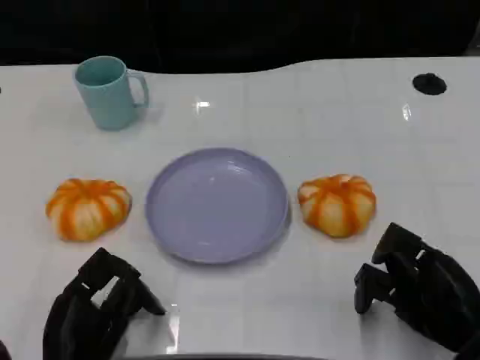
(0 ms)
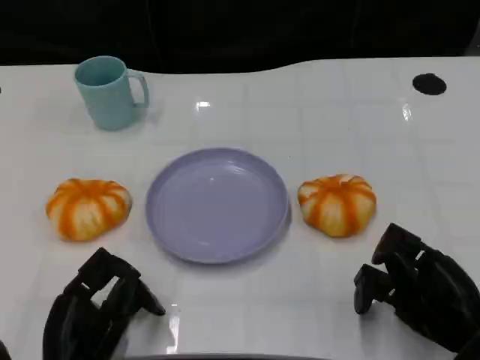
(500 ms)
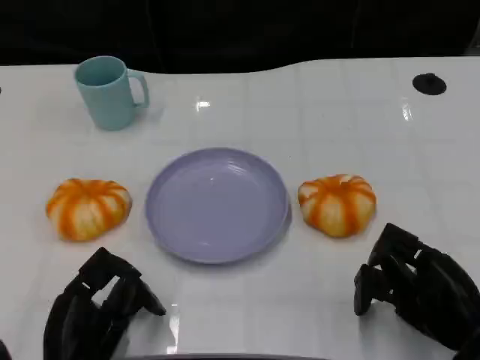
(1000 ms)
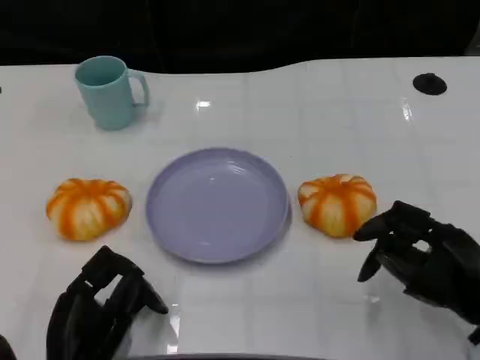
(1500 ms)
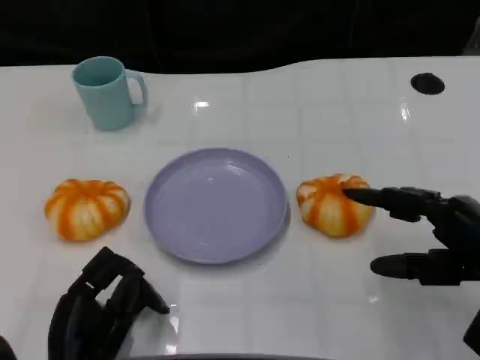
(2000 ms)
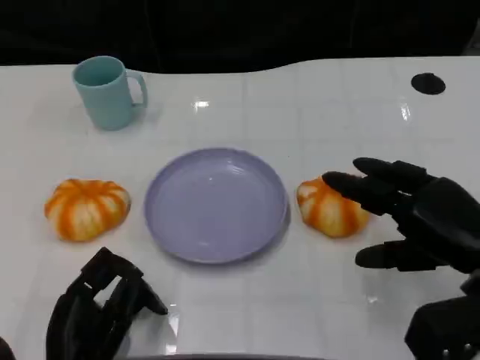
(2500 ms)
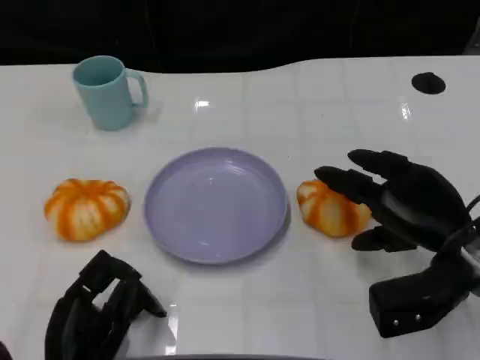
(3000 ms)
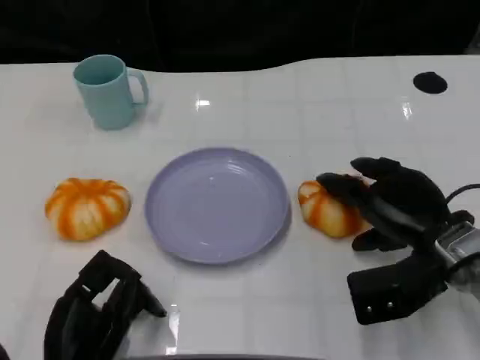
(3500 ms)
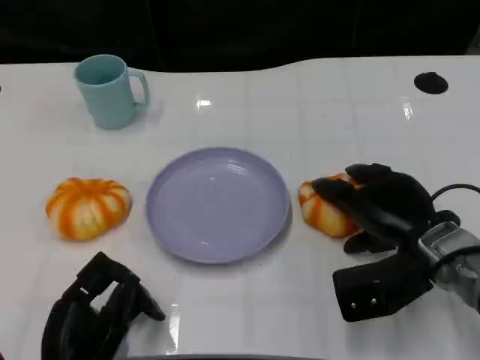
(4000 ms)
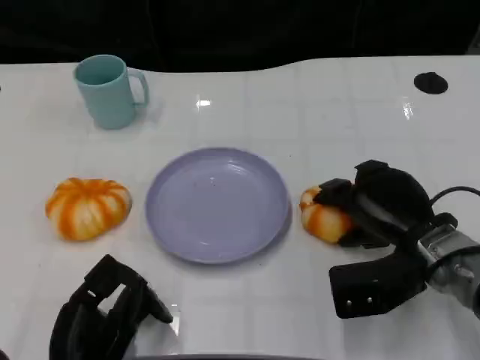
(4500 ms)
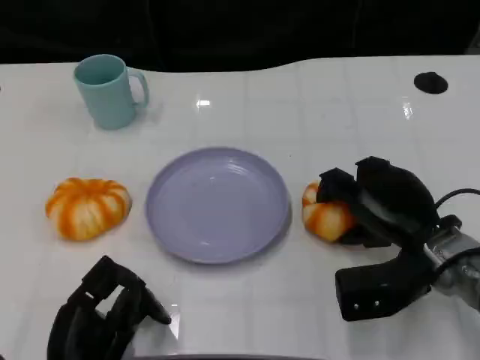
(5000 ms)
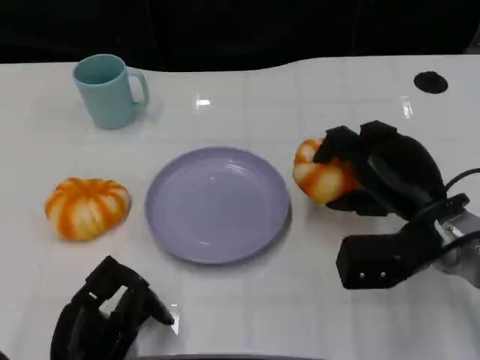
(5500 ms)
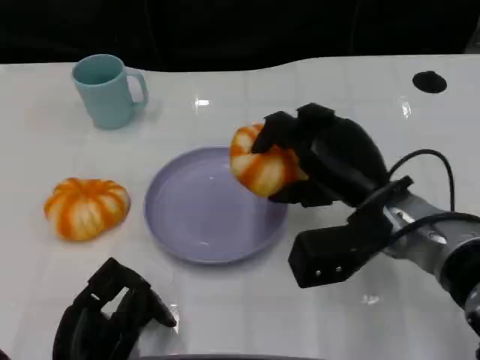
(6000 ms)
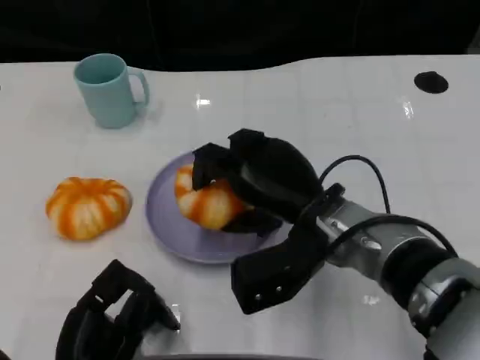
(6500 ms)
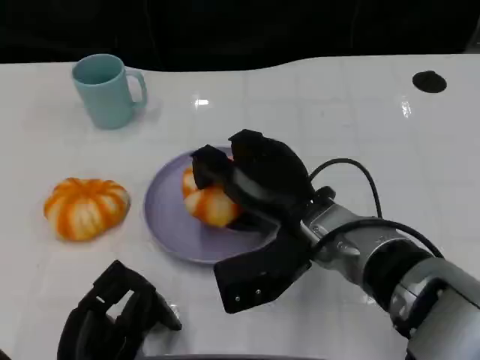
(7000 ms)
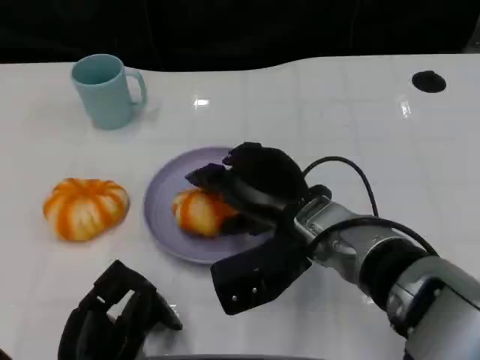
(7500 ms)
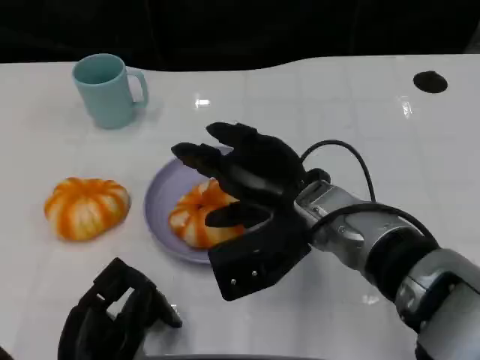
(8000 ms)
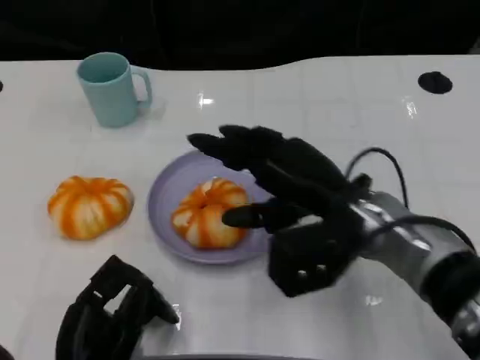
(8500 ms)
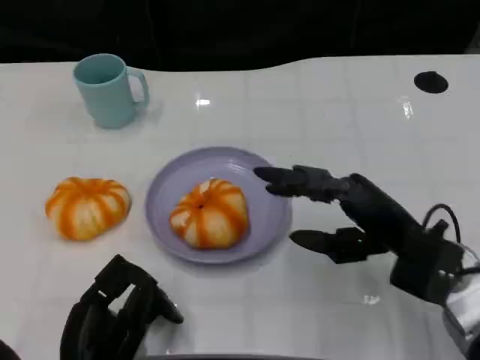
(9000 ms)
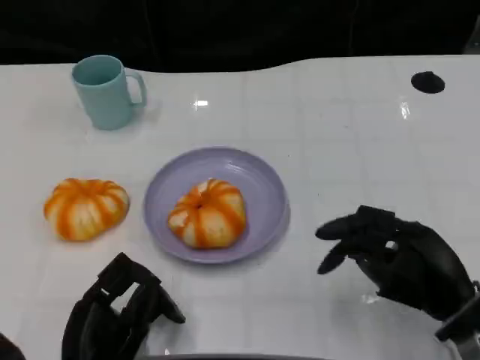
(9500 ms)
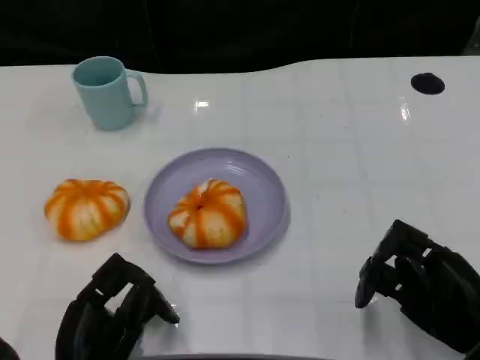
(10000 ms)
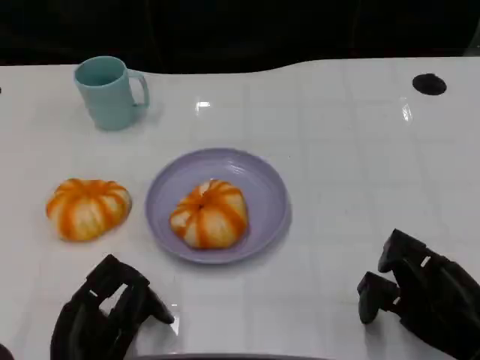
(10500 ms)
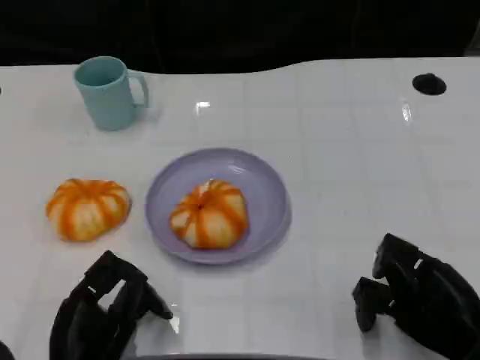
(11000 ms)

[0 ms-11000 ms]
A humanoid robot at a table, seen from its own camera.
Task of the whole recording: Grasp the bread from the table and place it into the plate.
0 ms to 2000 ms: The right hand goes some 10 cm upward.
2000 ms to 3500 ms: The right hand shifts about 10 cm forward and to the left.
5500 ms to 7500 ms: The right hand shifts approximately 10 cm to the left.
7500 ms to 9000 ms: The right hand heads to the right, covering roughly 10 cm.
9000 ms to 11000 ms: The right hand moves backward, to the right and downward, roughly 10 cm.

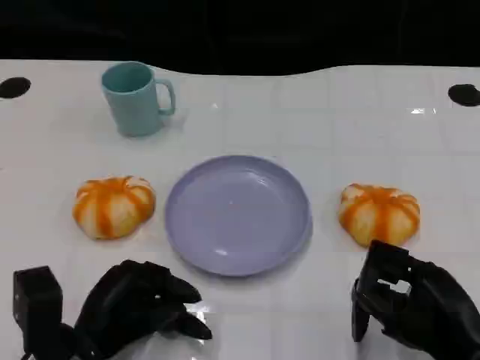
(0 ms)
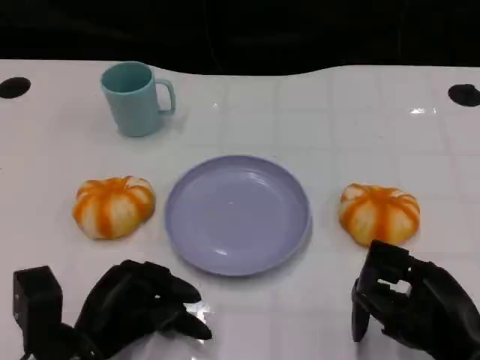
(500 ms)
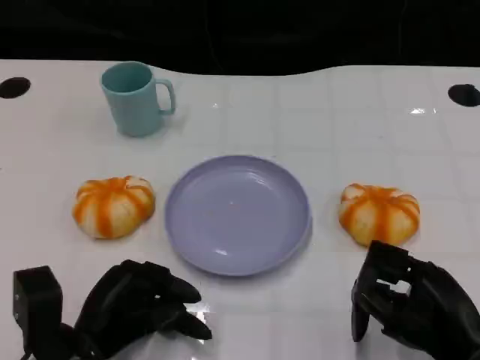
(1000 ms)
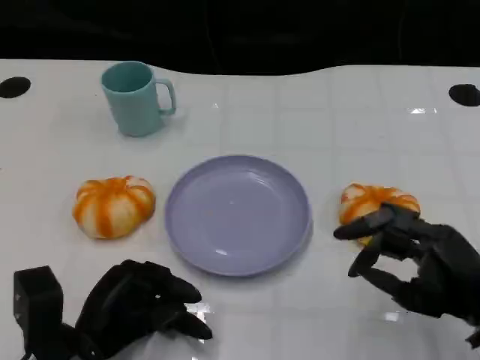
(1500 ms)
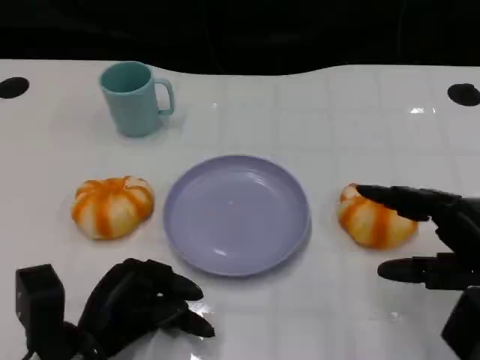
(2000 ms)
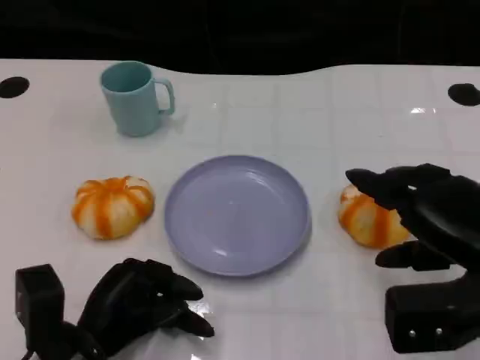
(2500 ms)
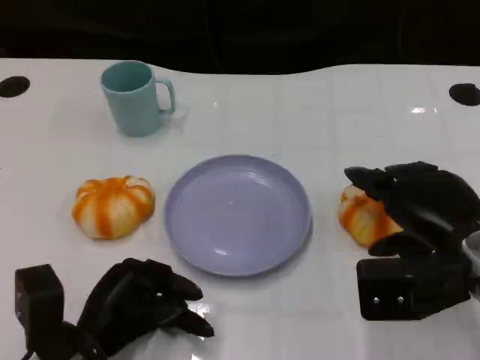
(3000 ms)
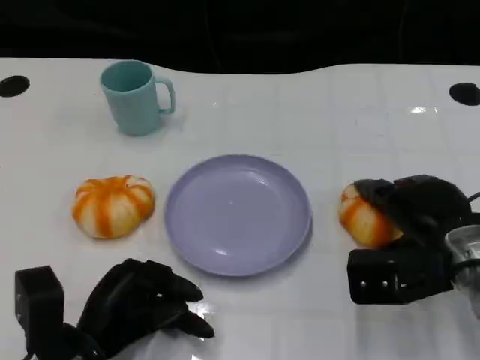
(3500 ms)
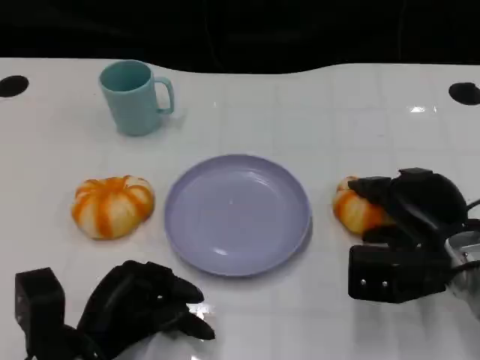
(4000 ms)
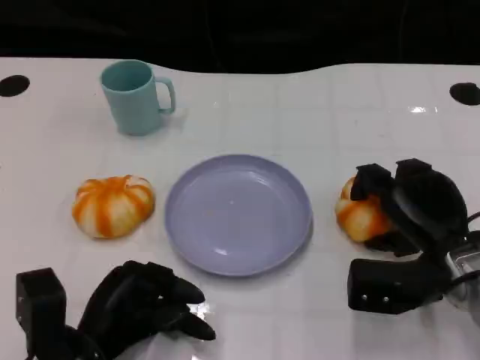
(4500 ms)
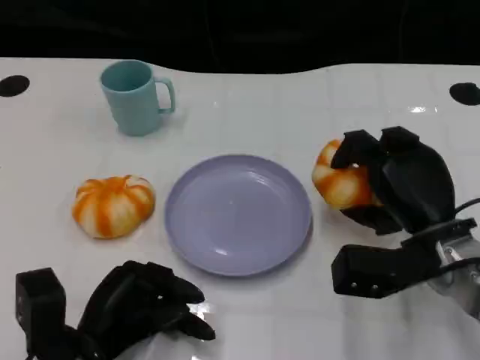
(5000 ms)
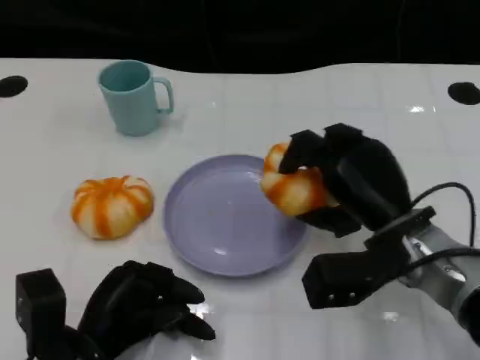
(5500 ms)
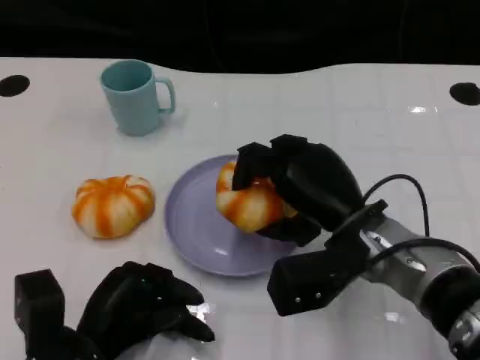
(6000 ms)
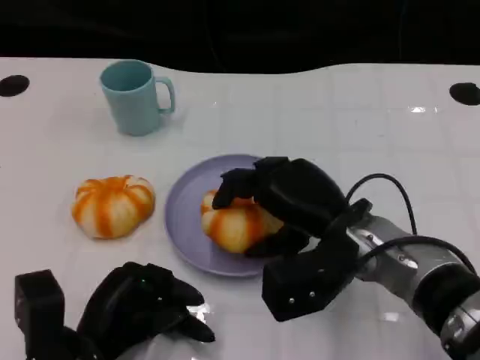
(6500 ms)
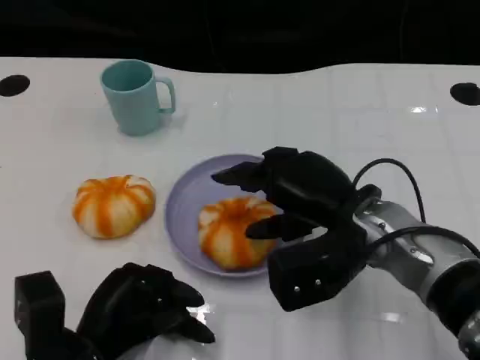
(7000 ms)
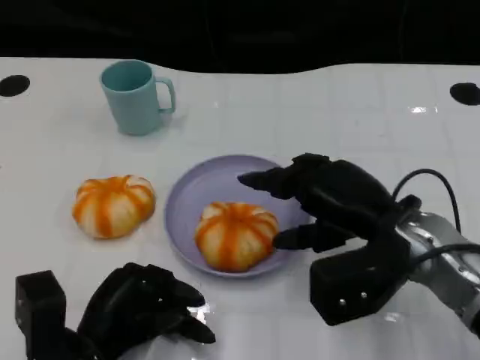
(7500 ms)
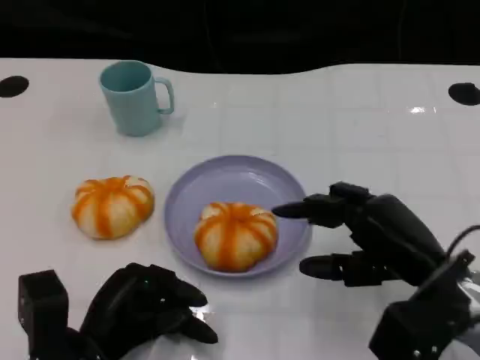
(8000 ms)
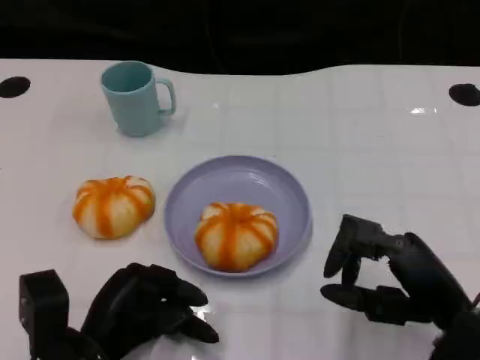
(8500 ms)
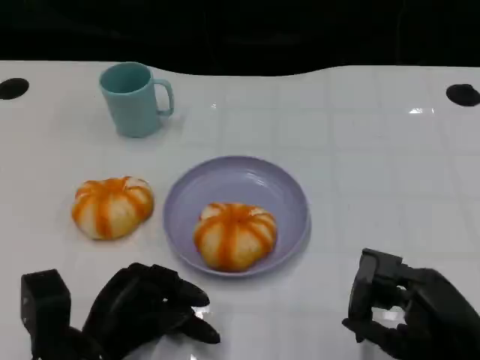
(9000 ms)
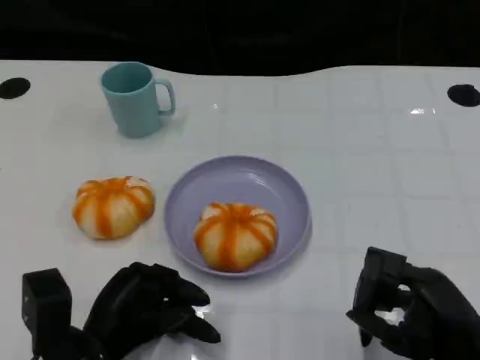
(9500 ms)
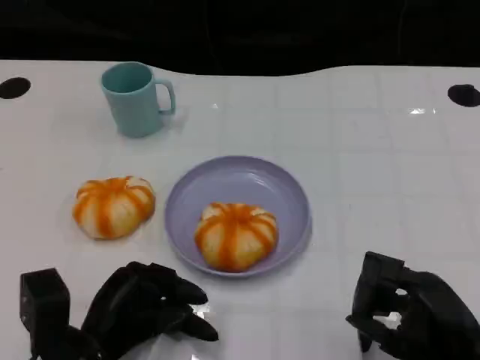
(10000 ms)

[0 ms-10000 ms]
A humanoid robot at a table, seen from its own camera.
Task of the whole recording: Grasp the bread from the table and place it into the plate.
0 ms to 2000 ms: The right hand shifts approximately 5 cm upward.
2000 ms to 4000 ms: The right hand shifts roughly 10 cm forward and downward.
4000 ms to 6000 ms: The right hand goes roughly 10 cm to the left.
6000 ms to 8000 ms: The right hand moves to the right and backward, some 10 cm.
8000 ms to 10000 ms: The right hand is displaced backward by roughly 5 cm.

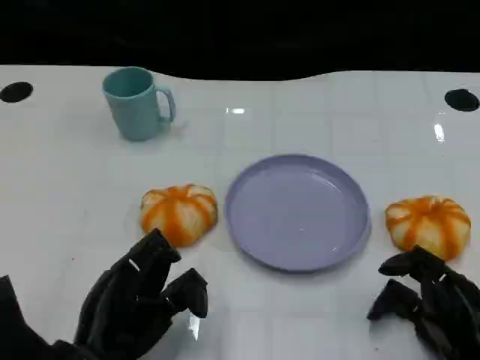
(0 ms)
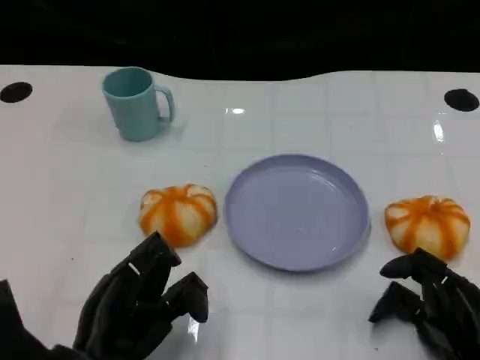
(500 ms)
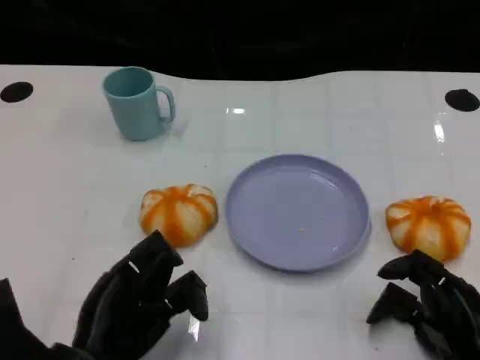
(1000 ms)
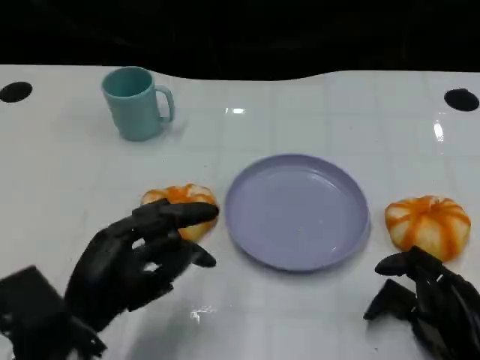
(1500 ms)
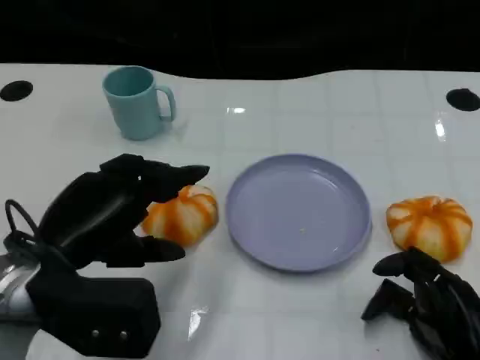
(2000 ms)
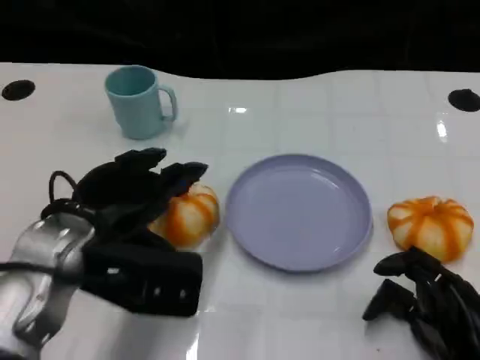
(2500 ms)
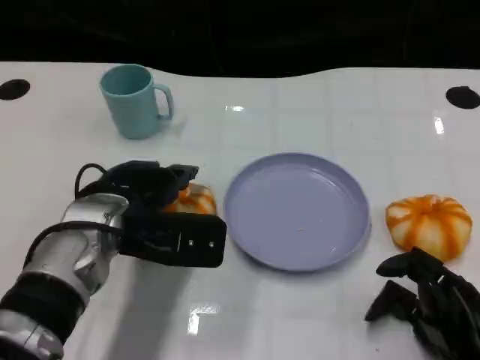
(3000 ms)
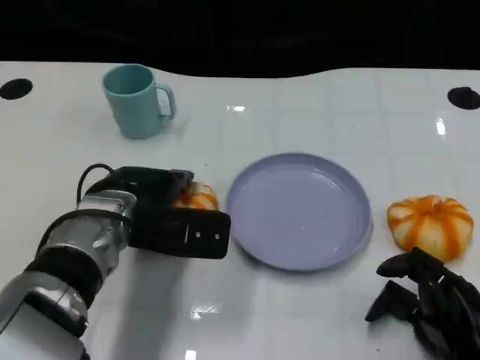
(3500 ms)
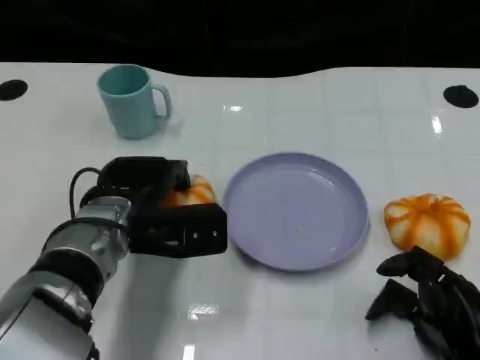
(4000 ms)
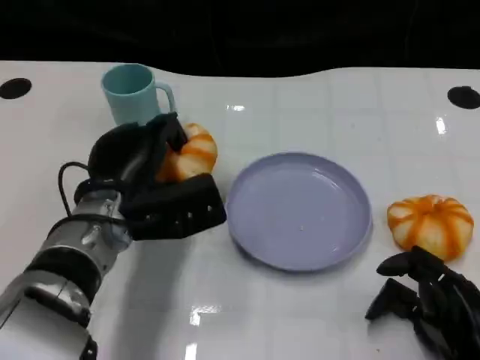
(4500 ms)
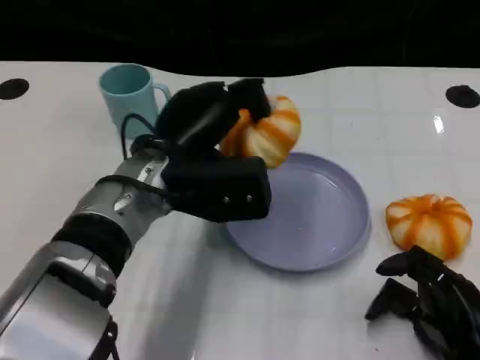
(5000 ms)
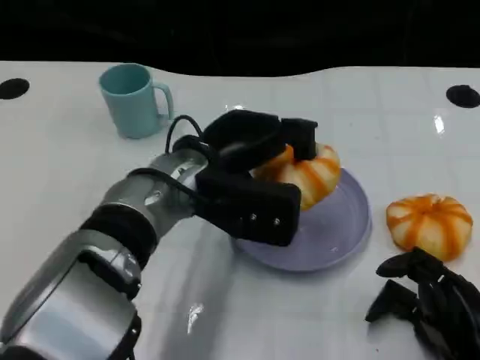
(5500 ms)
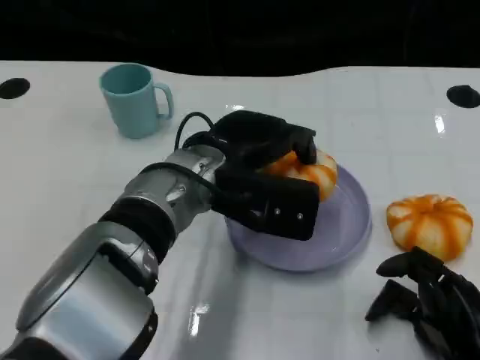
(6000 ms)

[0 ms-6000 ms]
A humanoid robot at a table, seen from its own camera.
Task of the whole recording: Grasp the bread from the table and place it into the plate.
0 ms to 2000 ms: The left hand goes roughly 10 cm upward.
2000 ms to 4000 ms: The left hand moves forward, to the right and downward, about 10 cm.
4000 ms to 6000 ms: The left hand heads to the right and upward, covering some 10 cm.
